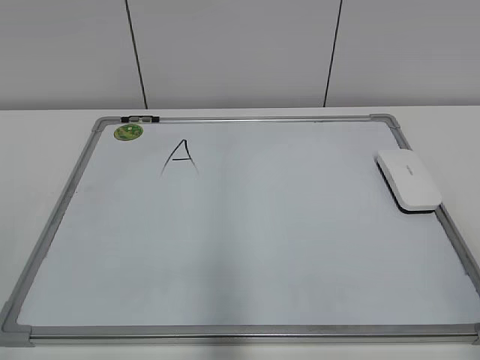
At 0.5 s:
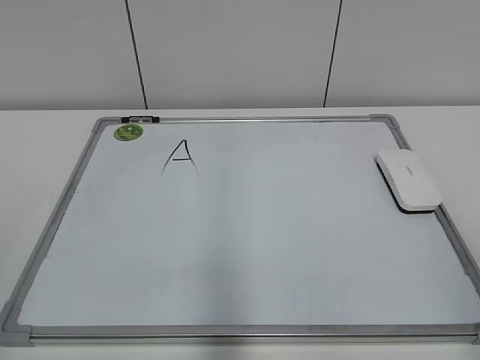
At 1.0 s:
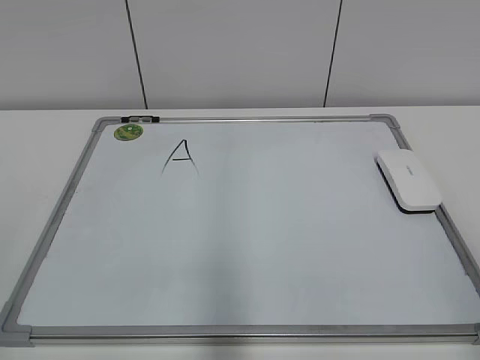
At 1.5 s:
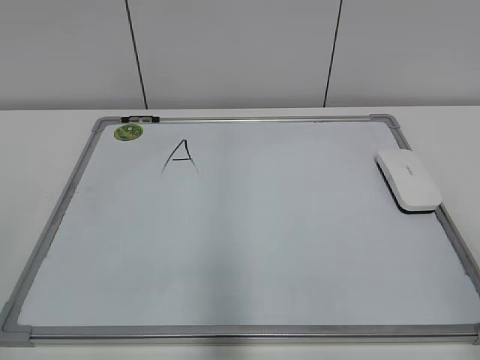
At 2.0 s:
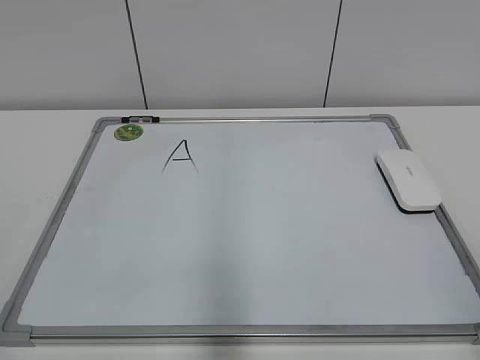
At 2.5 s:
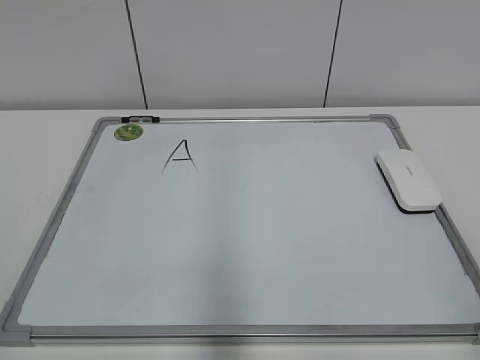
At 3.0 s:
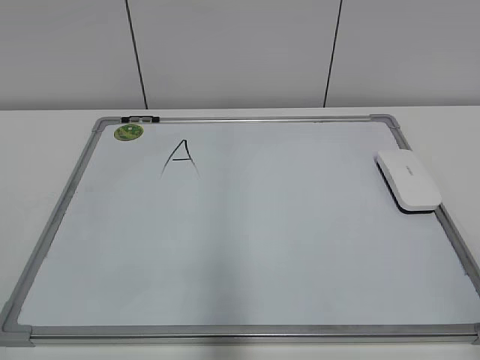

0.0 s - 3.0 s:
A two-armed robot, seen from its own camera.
Task of the whole recording: pick up the eraser on the blackboard and erase the letter "a".
0.0 s - 1.5 s: Neither gripper changes place.

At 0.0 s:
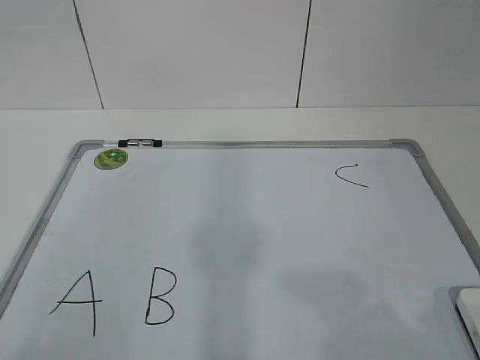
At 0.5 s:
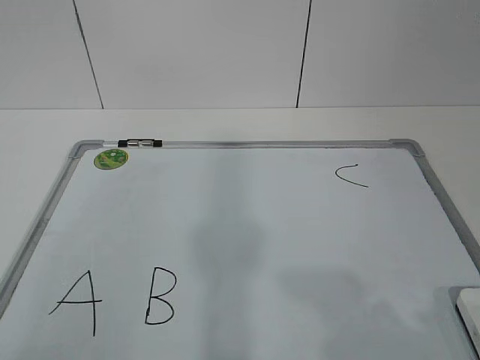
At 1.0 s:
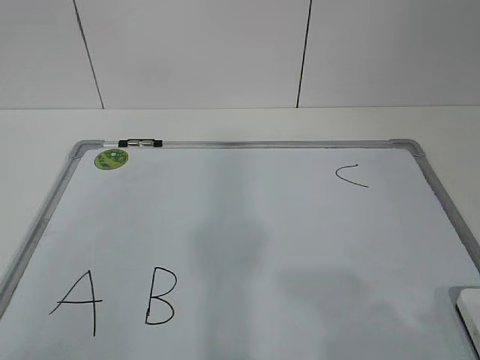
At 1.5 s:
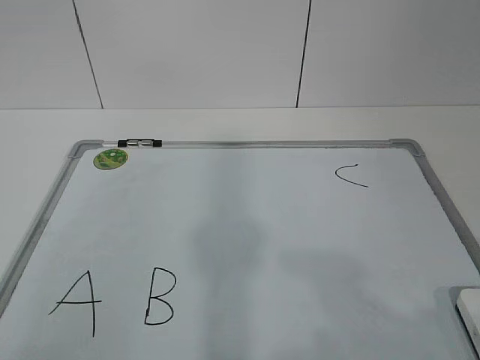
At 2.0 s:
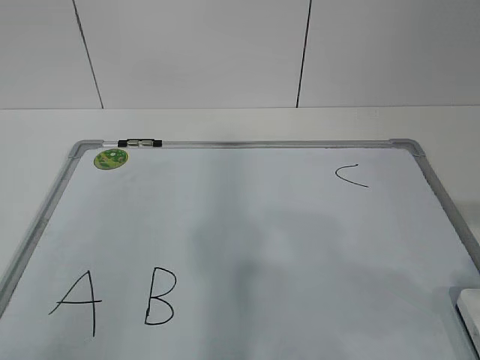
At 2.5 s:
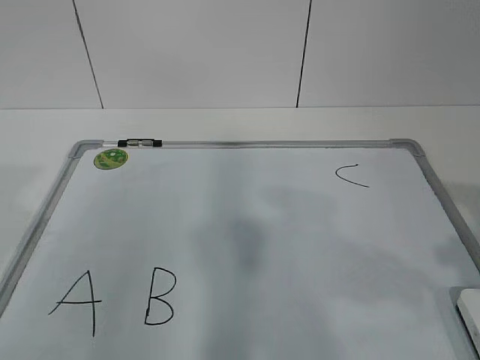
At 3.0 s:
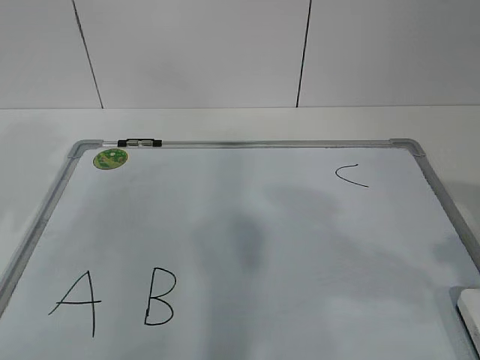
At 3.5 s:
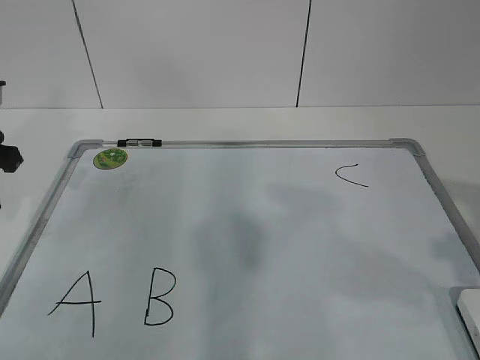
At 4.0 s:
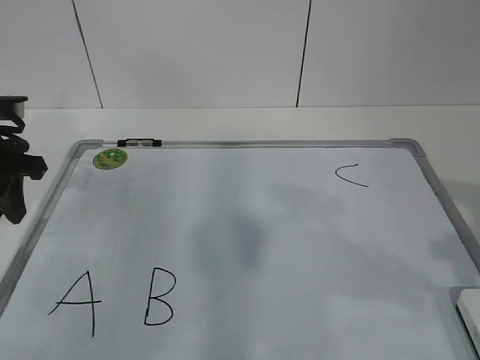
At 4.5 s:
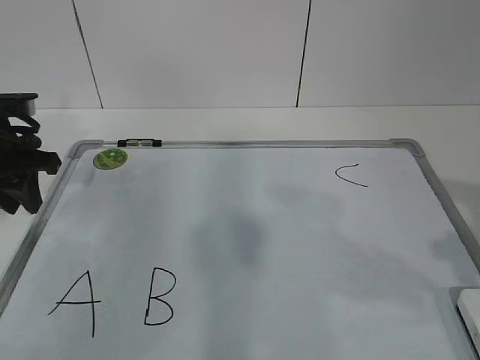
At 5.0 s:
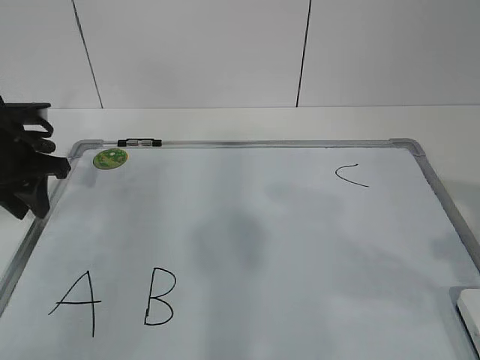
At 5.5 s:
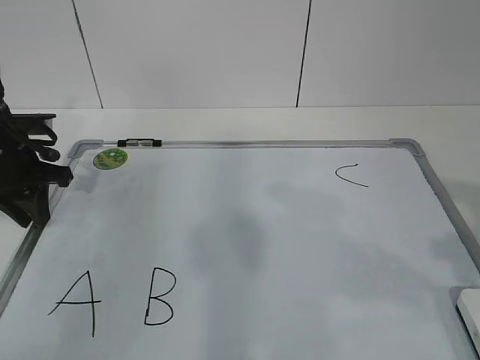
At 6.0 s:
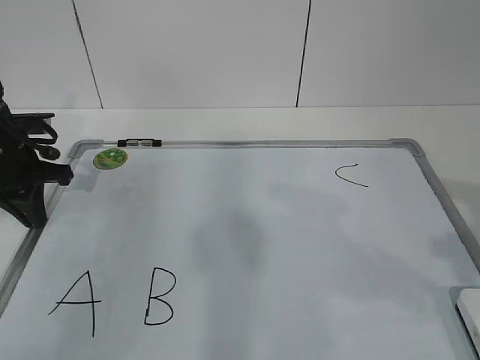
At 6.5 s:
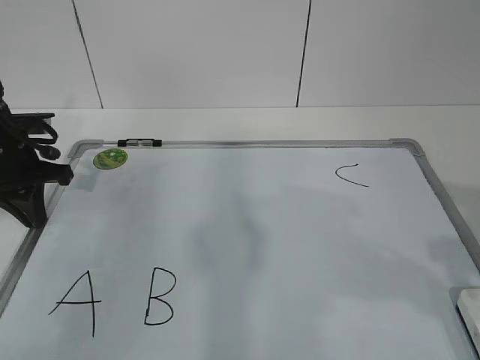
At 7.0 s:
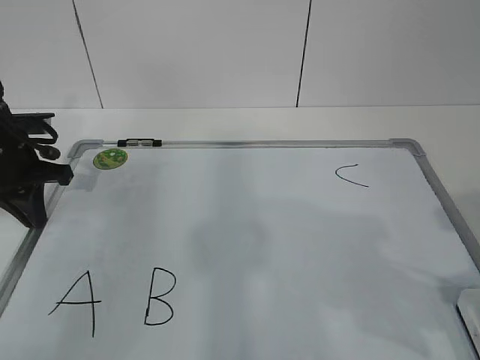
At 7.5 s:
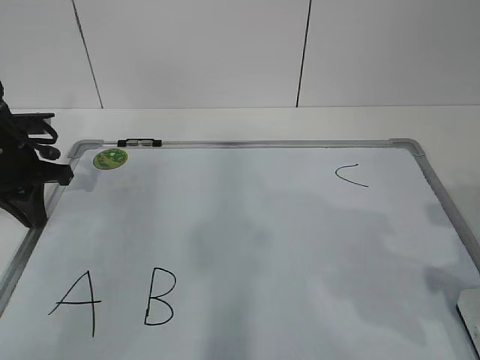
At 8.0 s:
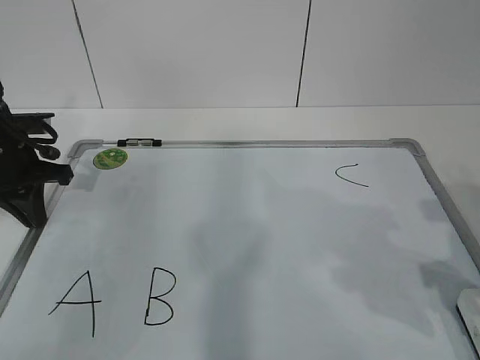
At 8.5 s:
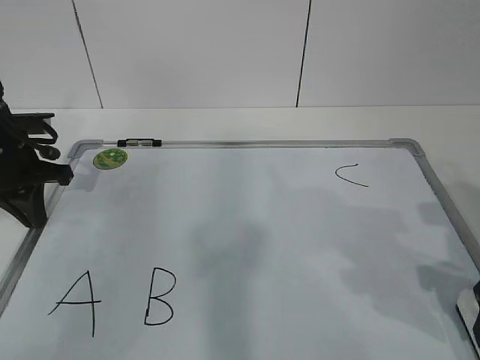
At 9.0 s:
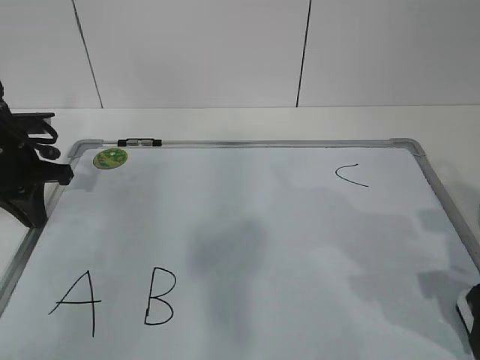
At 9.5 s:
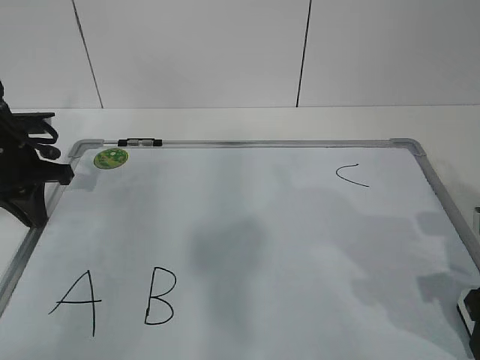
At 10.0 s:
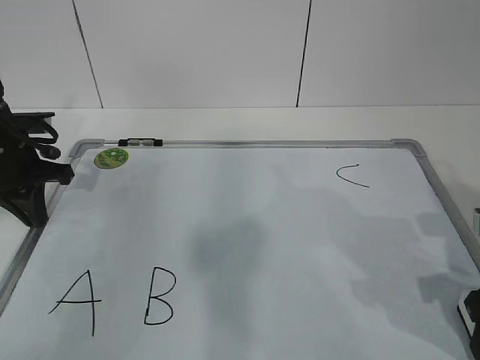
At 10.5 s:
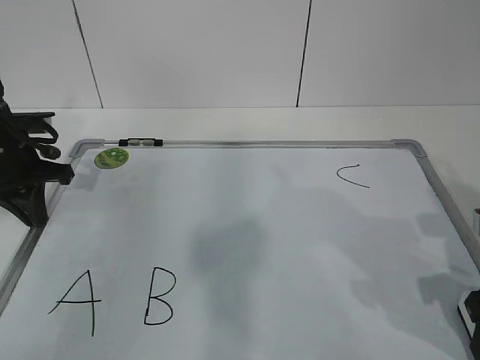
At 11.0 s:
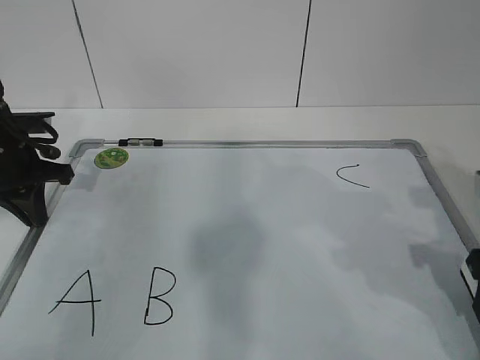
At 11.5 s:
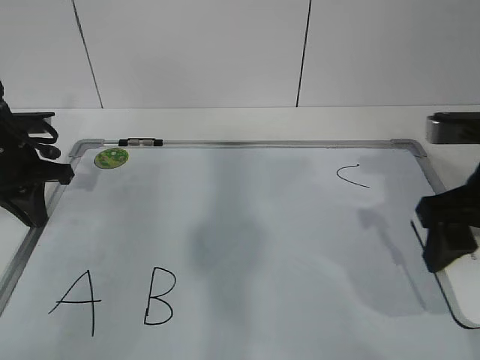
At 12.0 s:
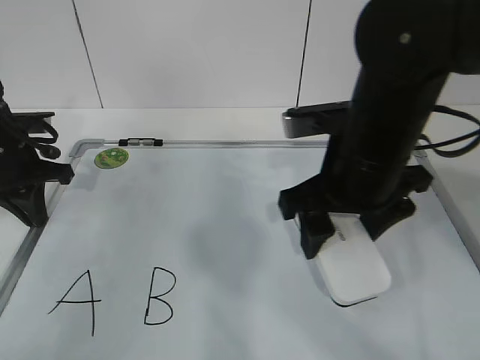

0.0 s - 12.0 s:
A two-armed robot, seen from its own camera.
Task of the whole recording: pick up the eraser on the blackboard and erase the letter "B".
Step, 0.0 s - 4.5 s: Hold the drawing board steady with your left hand.
Step, 5.0 s - 8.0 s: Grab the eraser with your right hand.
2.0 s - 4.0 s: The left gripper moves forward, approximately 30 cm.
4.0 s - 6.0 s: The left gripper changes place by about 5 cm, and closes.
6.0 s - 8.0 s: The right gripper is displaced downward and forward by roughly 10 cm.
8.0 s - 10.0 s: There are only small adjustments of the grippers.
10.0 s - 12.0 s: The right gripper goes about 20 cm to the left, forward and upward.

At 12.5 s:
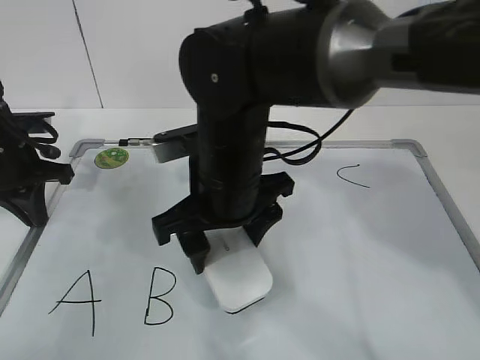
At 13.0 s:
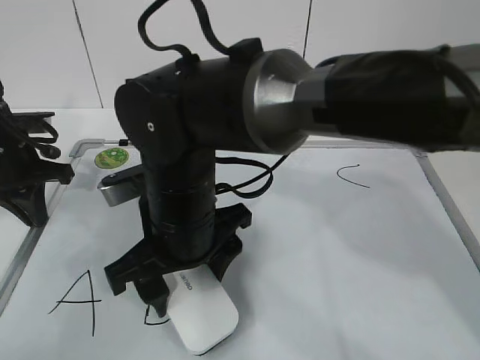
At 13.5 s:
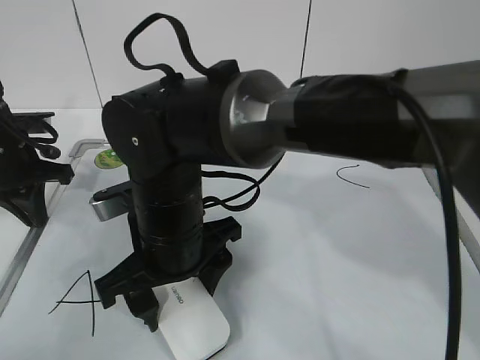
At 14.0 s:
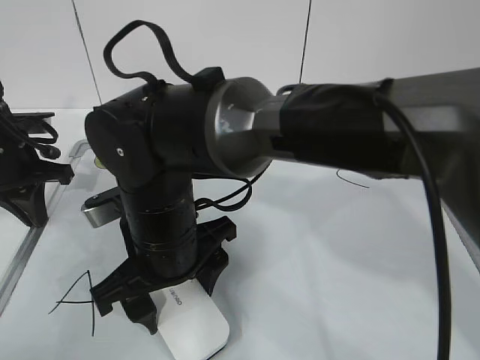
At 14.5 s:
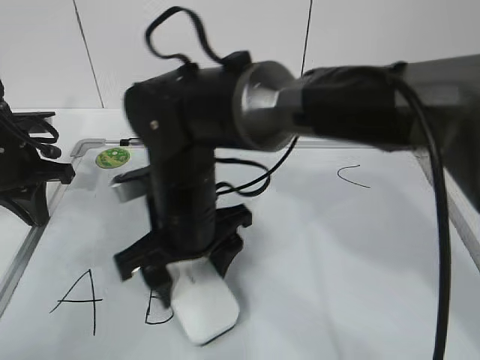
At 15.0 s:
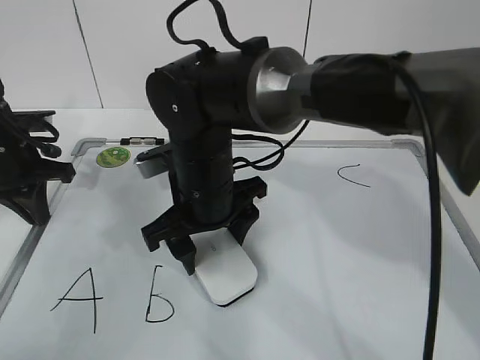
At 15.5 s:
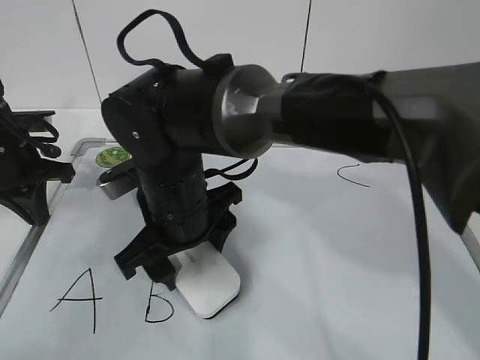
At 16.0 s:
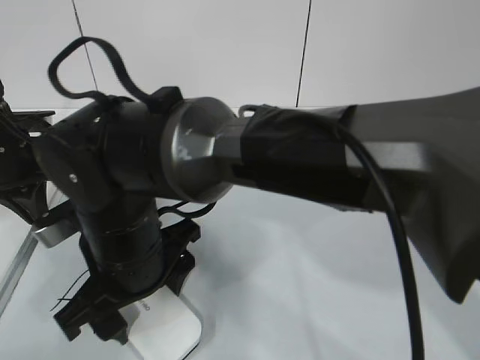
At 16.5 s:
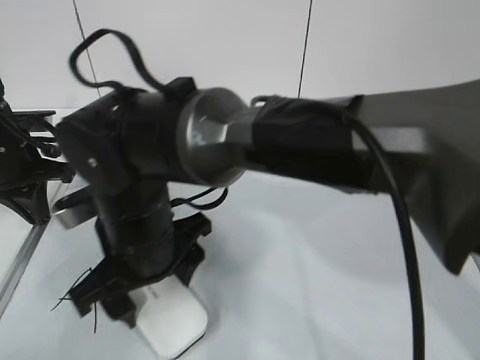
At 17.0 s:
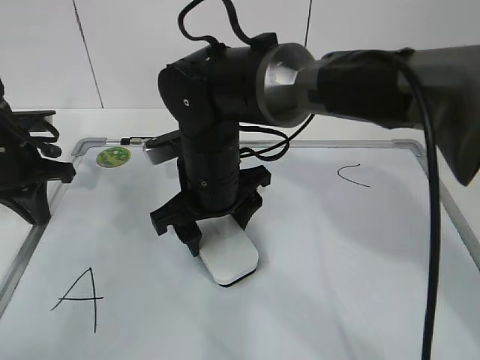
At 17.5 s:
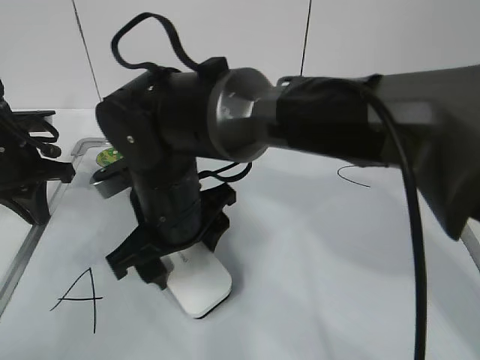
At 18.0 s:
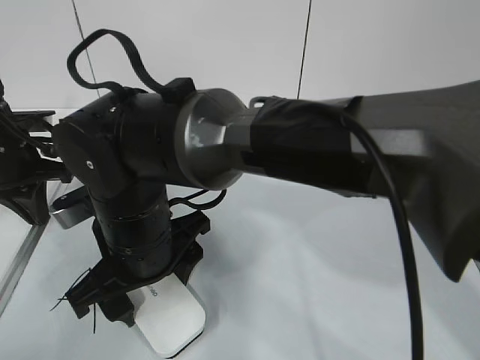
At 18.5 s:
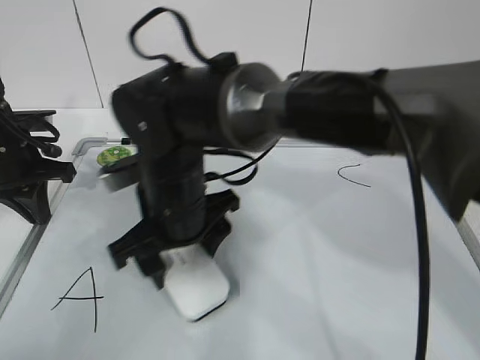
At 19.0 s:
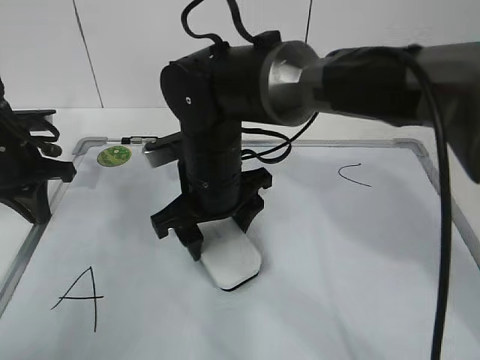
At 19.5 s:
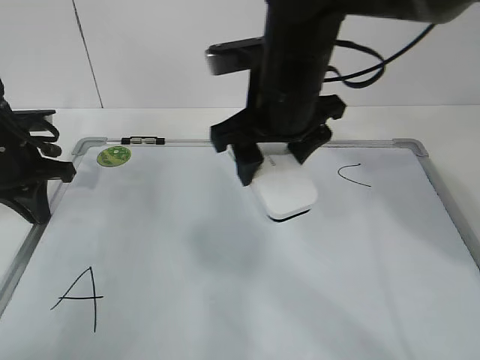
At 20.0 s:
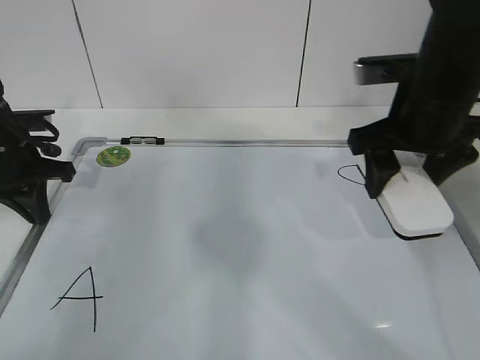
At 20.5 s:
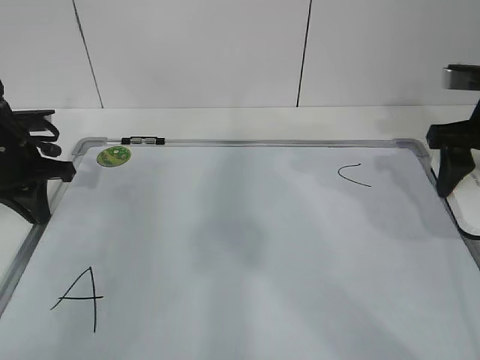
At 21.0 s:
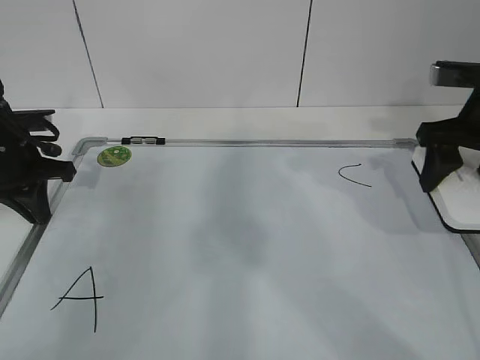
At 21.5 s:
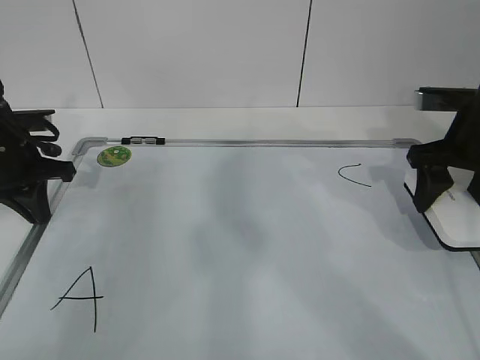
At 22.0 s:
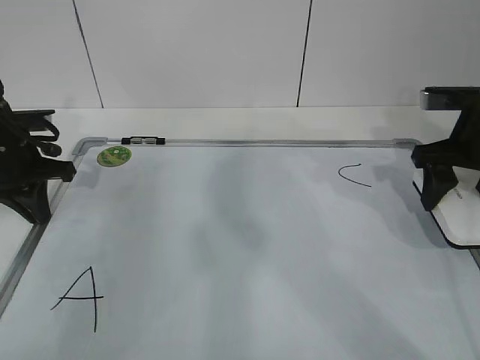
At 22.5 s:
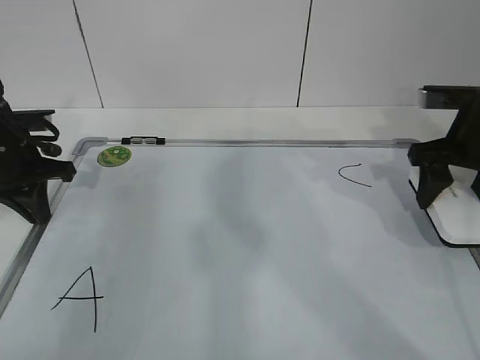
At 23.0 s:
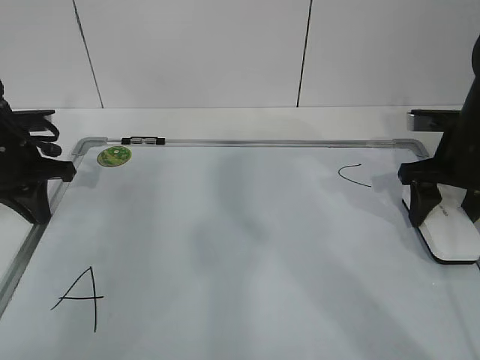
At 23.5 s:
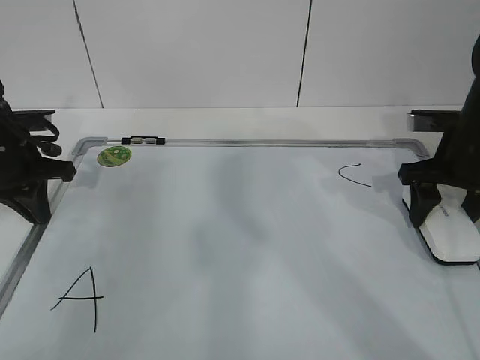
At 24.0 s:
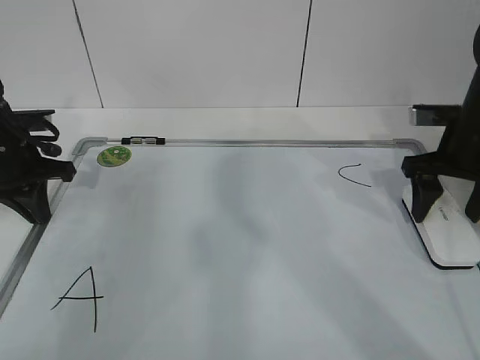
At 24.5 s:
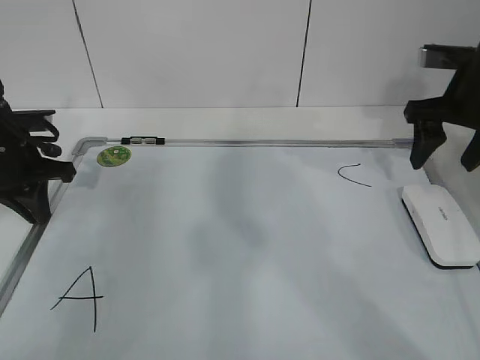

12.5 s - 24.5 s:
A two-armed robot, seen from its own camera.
Task of the whole recording: pick up the eraser on the blackboard and erase the letter "B".
Step, 12.5 s - 15.5 s: Erase the letter B with your right hand.
Step, 16.0 s - 19.5 s: Put down the eraser with your right hand.
12.5 s - 14.5 s: The right gripper shifts by approximately 5 cm.
14.5 s - 16.5 s: The right gripper goes forward and returns, roughly 5 cm each way.
16.5 s - 18.5 s: The right gripper goes forward and backward, approximately 10 cm each way, reversing 2 times.
18.5 s - 20.5 s: The right gripper shifts about 35 cm to the right.
20.5 s - 22.5 s: The grippers make only small movements.
22.5 s - 24.5 s: The grippers stay close to where they were, moving slightly.
